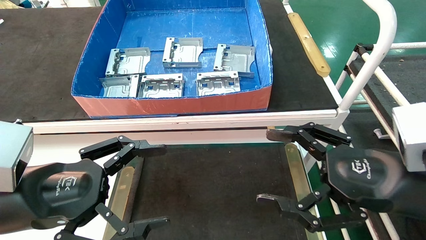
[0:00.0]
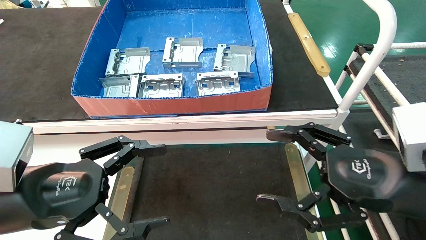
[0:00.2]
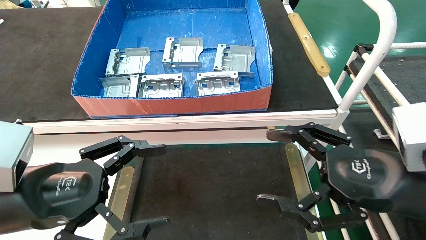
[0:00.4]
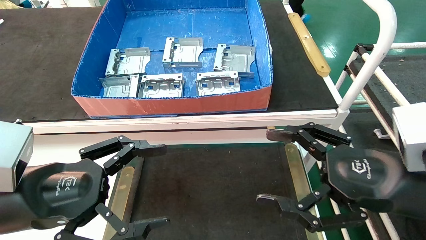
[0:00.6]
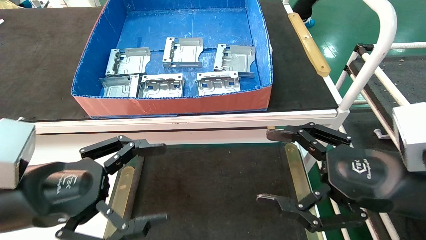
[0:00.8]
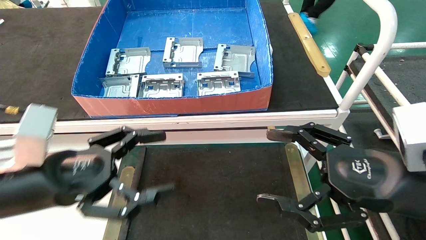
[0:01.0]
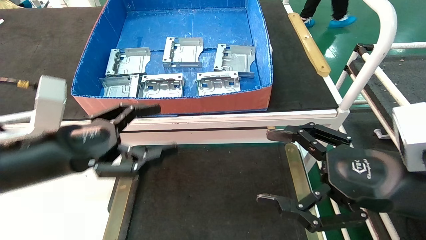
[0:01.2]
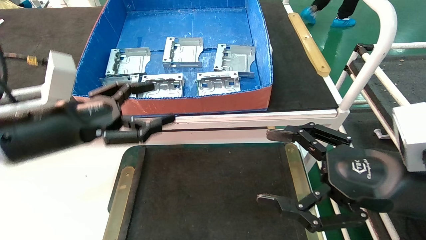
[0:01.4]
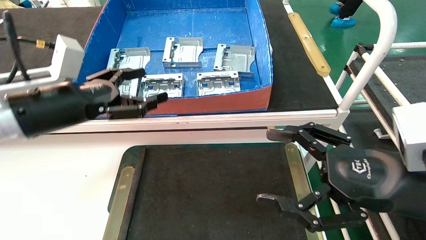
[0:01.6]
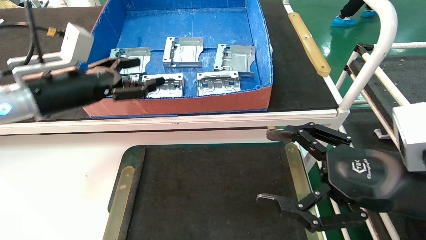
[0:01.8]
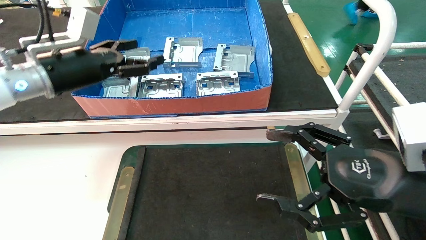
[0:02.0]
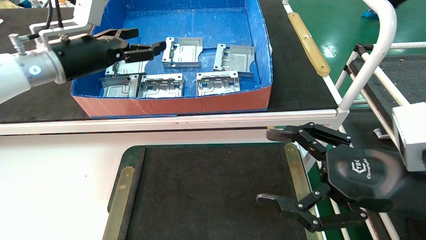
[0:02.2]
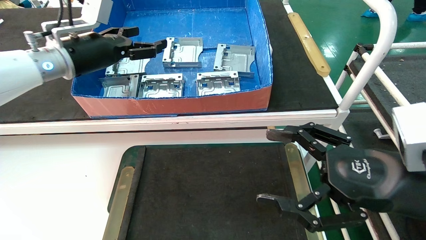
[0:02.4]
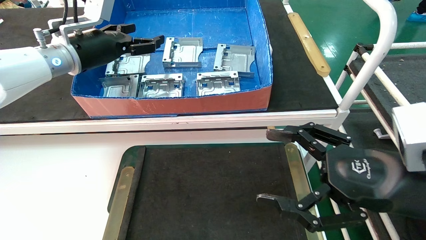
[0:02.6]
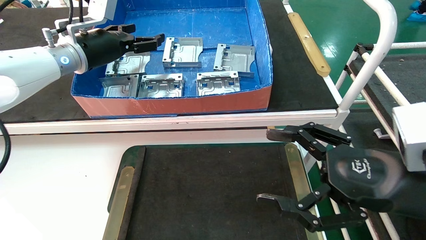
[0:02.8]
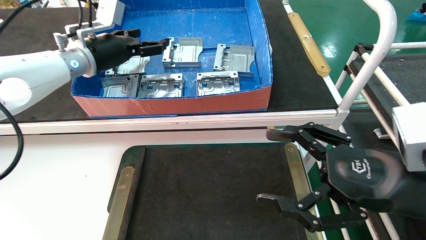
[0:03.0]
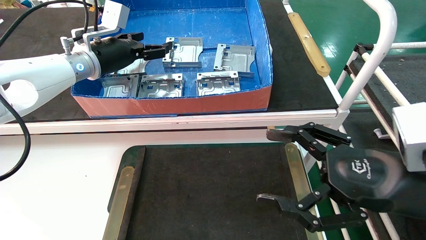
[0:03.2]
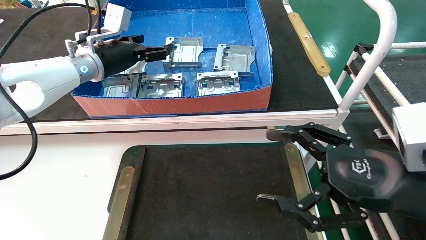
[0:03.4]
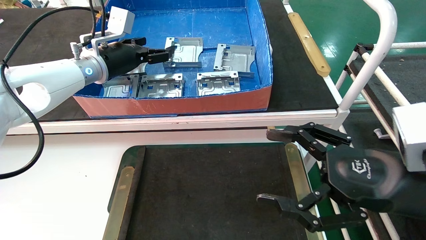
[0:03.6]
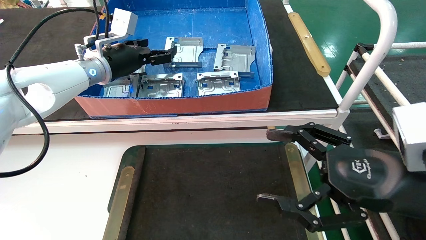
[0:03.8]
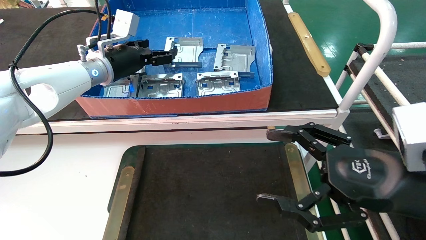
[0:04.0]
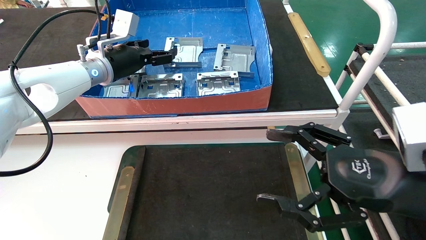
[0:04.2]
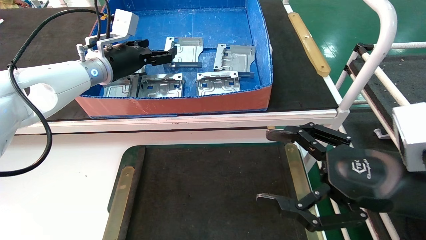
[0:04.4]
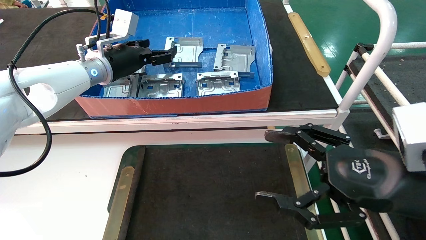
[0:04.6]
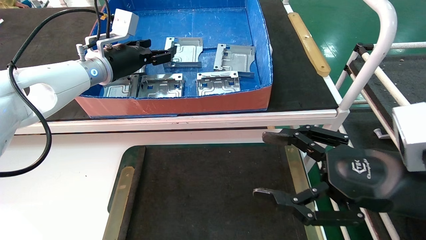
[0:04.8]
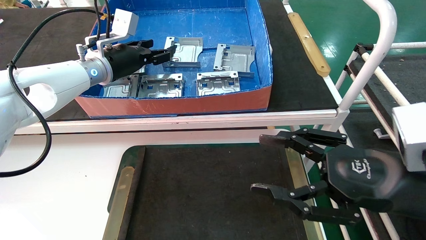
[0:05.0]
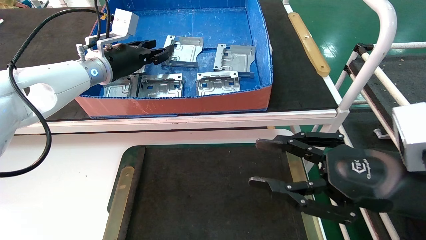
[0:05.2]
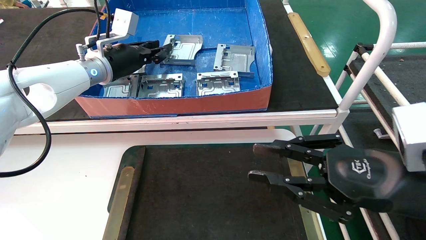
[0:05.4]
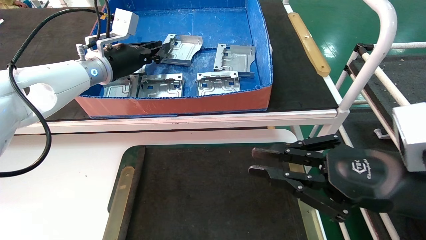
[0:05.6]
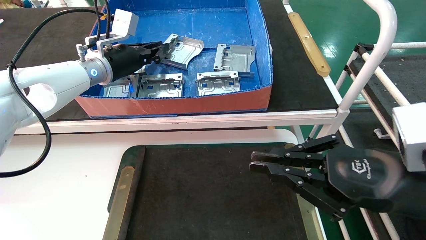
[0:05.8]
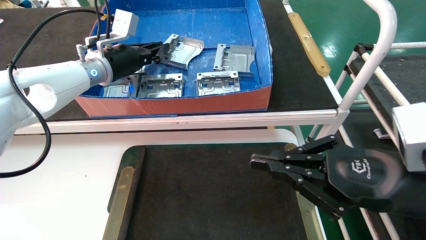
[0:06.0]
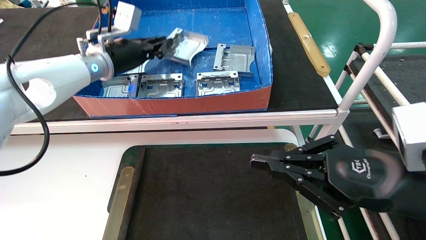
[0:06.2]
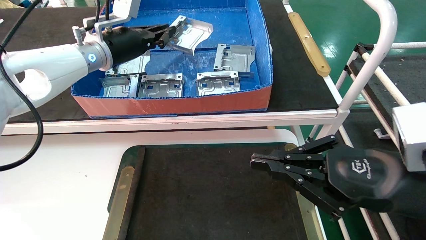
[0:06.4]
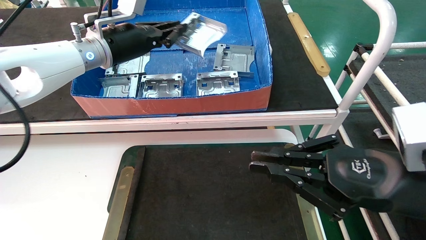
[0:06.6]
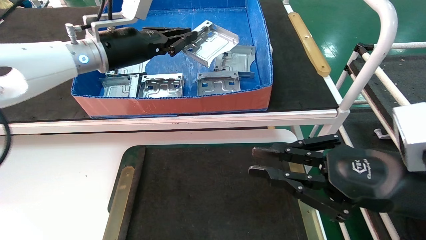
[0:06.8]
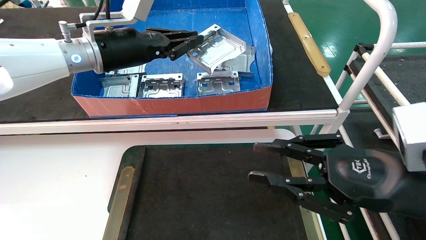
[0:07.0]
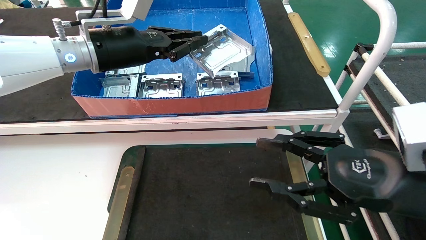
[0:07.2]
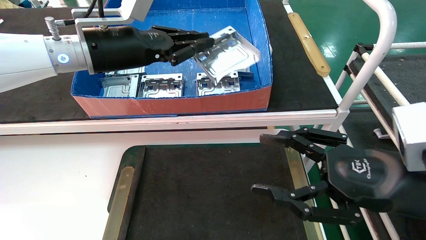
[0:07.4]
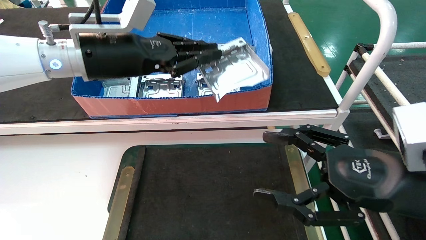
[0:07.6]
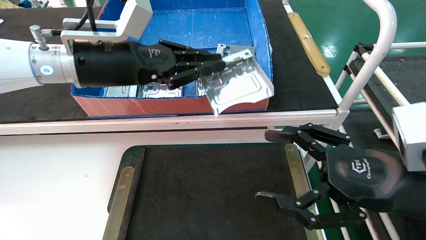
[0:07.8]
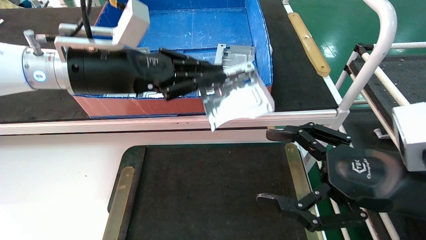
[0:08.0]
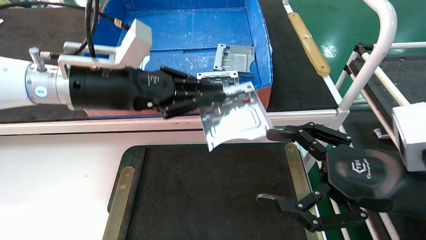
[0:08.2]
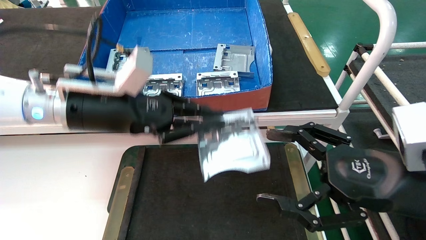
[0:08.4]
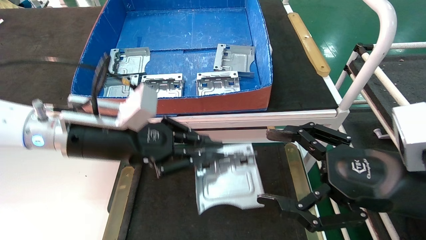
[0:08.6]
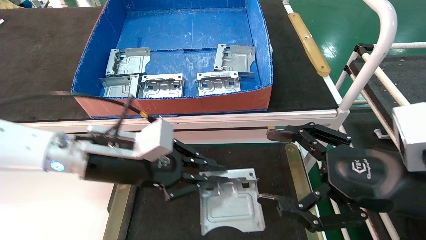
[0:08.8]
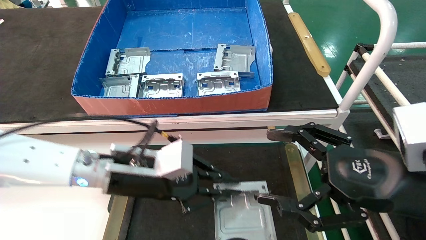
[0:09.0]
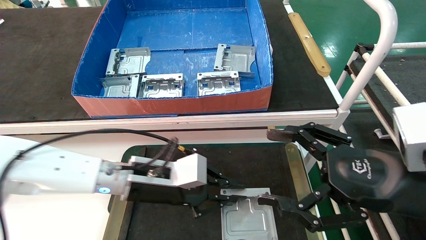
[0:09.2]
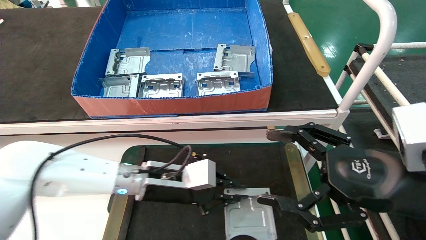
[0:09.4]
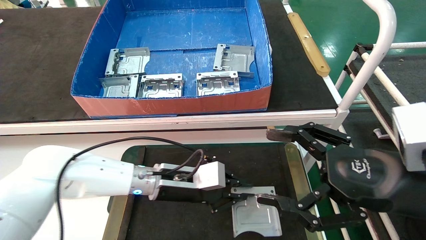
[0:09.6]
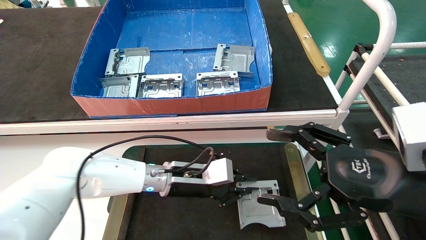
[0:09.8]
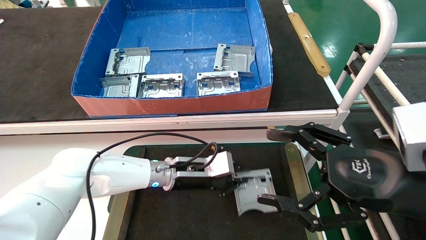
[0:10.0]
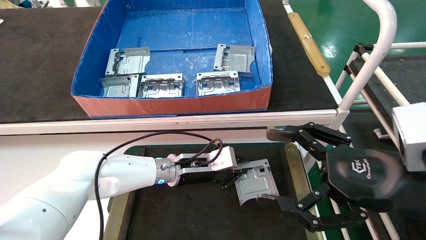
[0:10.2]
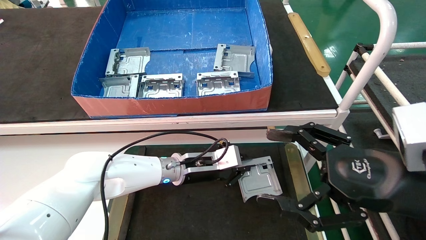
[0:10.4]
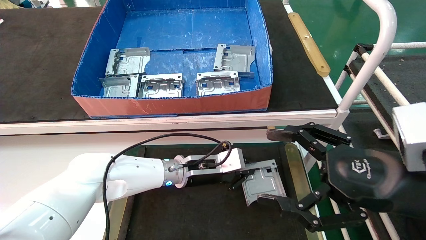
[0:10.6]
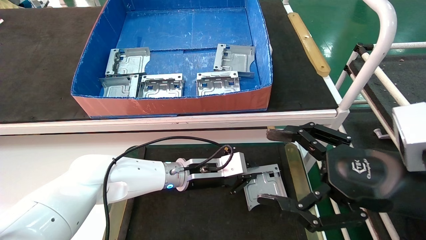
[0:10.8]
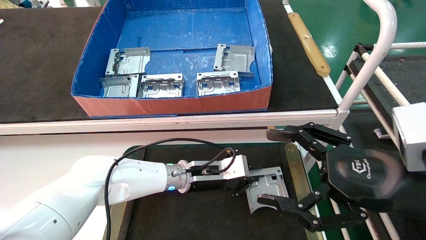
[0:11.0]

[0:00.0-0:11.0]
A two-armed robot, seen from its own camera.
Task of the whole recording: take the accessories out of the box and place them on the table.
Step, 0:01.2 to 0:05.6: Pick up the hard drive bracket from the feeding area.
0:00.0 to 0:01.6: The left gripper shifts about 15 cm forward and upward.
0:01.6 to 0:03.2: The left gripper travels forward and upward by some 15 cm.
0:03.2 to 0:04.8: There are only small adjustments of the grippers.
0:04.8 to 0:06.2: The left gripper closes up. The right gripper closes its fingers.
0:06.2 to 0:07.8: The left gripper travels backward by about 10 cm. The right gripper opens up.
0:07.8 to 0:09.4: The left gripper shifts approximately 20 cm downward.
0:09.4 to 0:11.0: The left gripper heads to the right and forward, covering some 10 cm.

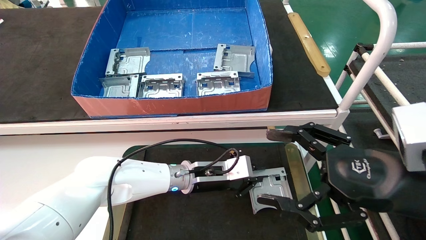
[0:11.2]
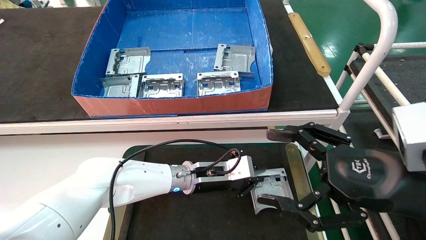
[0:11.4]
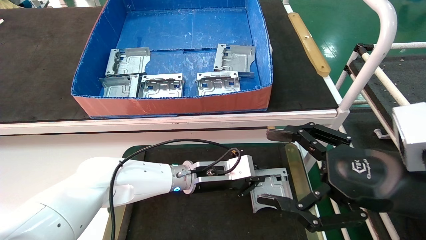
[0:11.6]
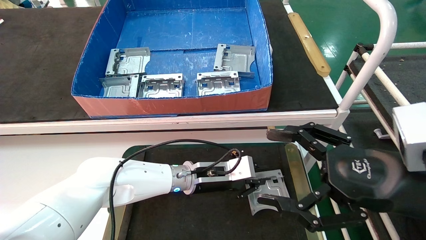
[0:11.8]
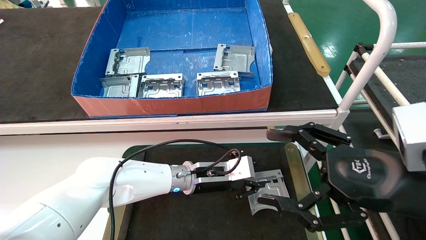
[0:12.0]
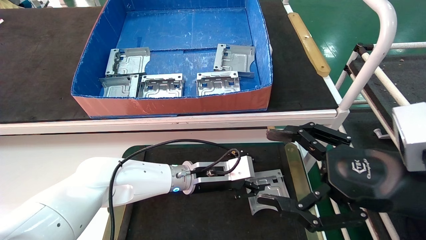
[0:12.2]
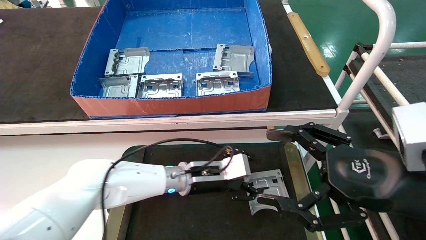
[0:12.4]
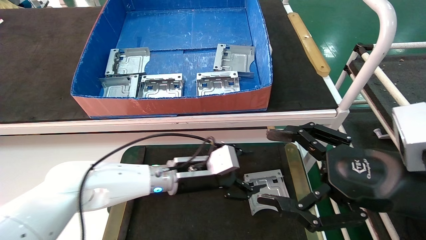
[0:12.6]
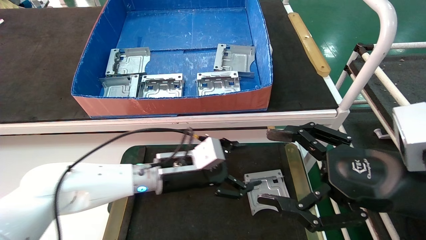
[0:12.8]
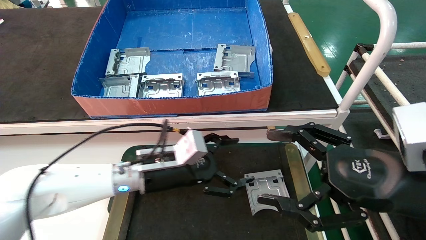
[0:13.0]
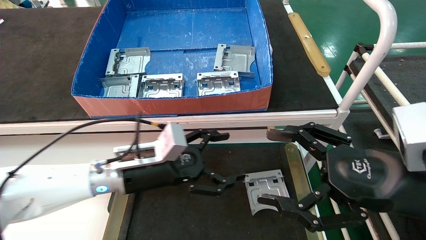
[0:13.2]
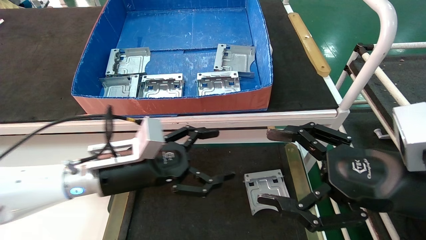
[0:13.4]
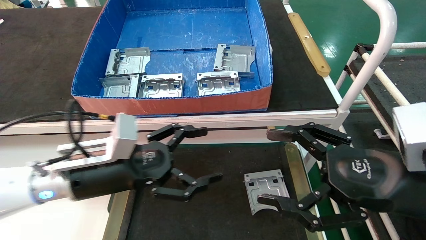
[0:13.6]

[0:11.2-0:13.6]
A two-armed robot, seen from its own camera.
Task of the whole recording: take the accessories out of the box and place them on the table.
0:11.2 to 0:12.4: The left gripper opens its fingers.
0:12.4 to 0:13.6: The left gripper is displaced to the left, backward and upward by some 20 cm, and opens its fingers.
